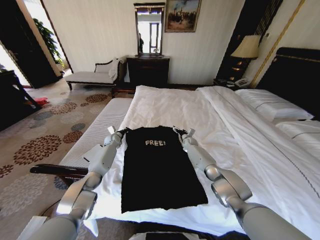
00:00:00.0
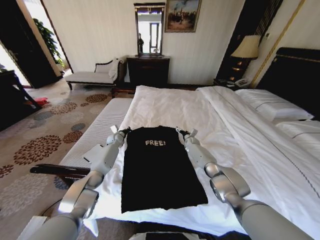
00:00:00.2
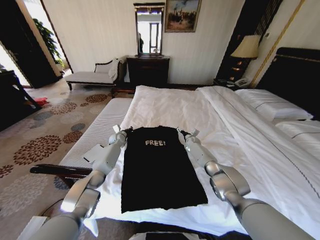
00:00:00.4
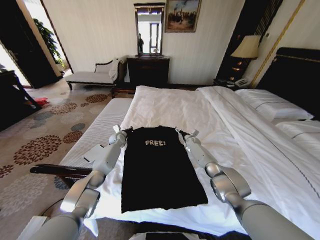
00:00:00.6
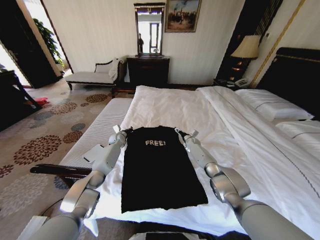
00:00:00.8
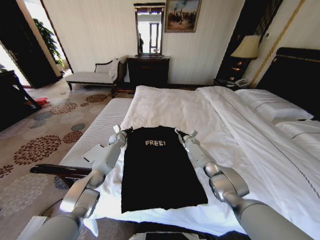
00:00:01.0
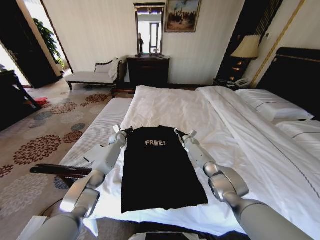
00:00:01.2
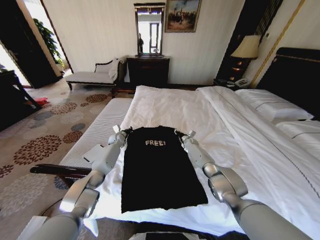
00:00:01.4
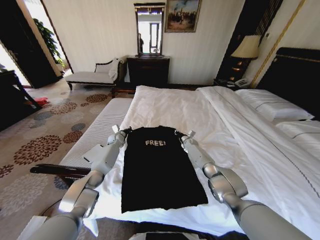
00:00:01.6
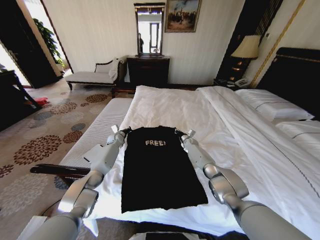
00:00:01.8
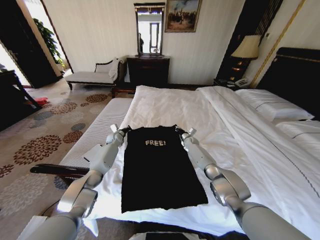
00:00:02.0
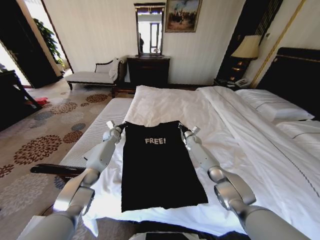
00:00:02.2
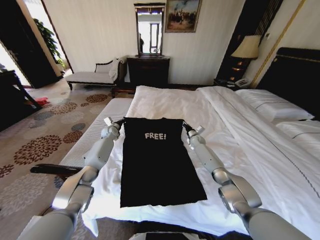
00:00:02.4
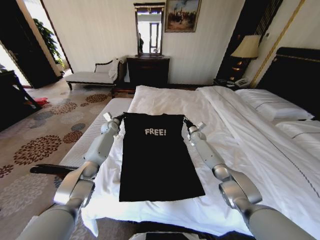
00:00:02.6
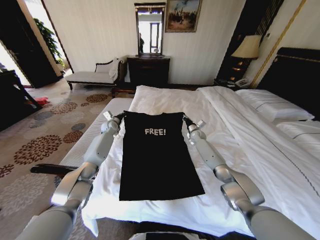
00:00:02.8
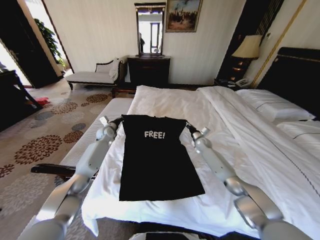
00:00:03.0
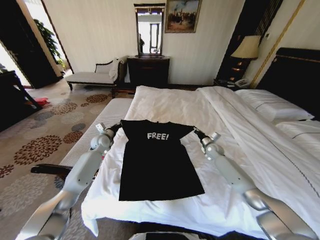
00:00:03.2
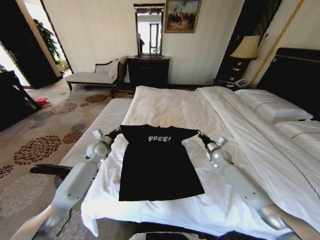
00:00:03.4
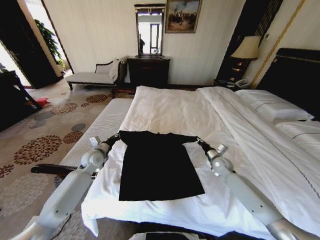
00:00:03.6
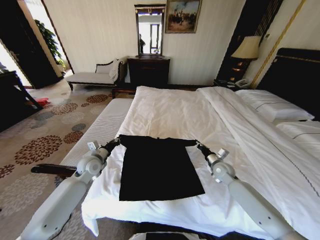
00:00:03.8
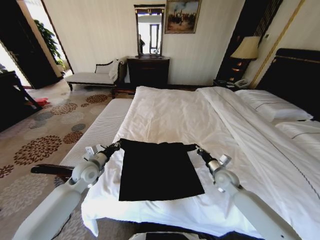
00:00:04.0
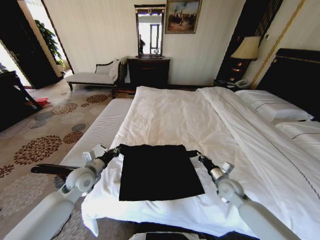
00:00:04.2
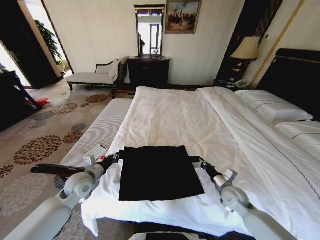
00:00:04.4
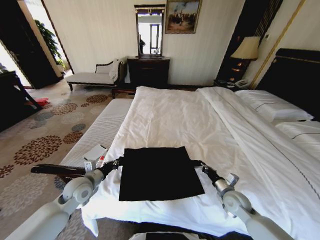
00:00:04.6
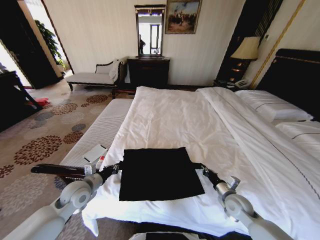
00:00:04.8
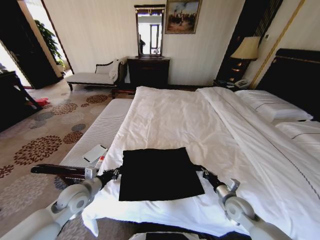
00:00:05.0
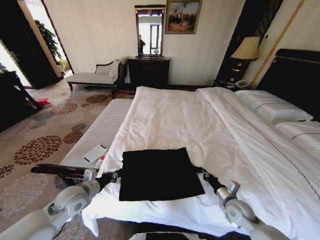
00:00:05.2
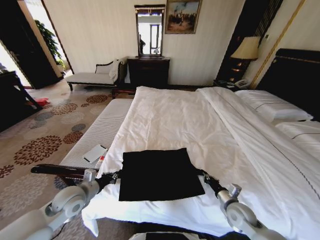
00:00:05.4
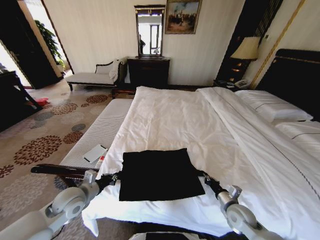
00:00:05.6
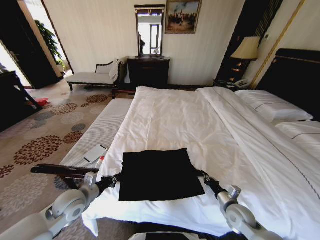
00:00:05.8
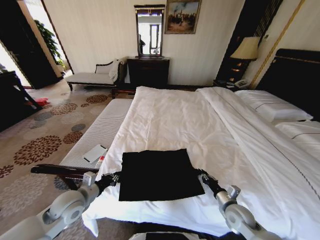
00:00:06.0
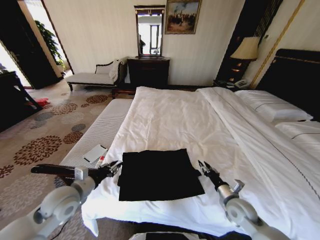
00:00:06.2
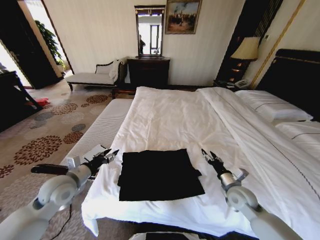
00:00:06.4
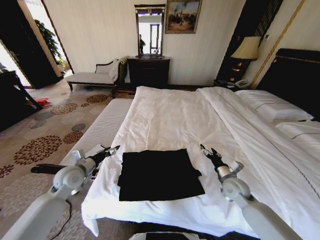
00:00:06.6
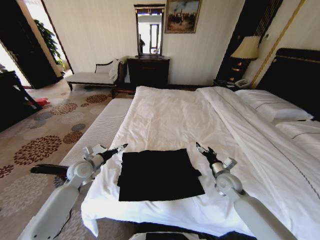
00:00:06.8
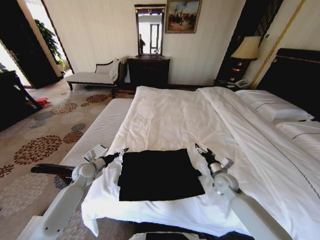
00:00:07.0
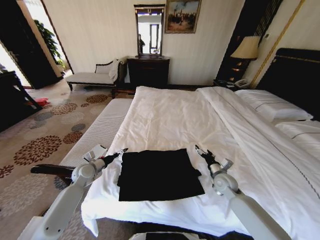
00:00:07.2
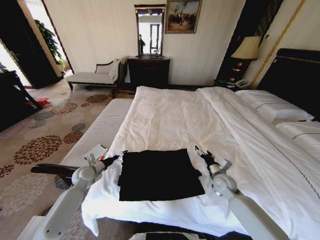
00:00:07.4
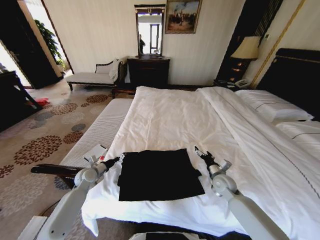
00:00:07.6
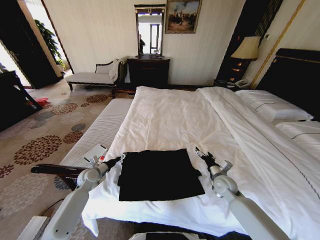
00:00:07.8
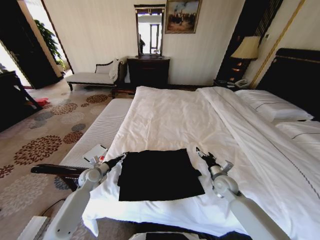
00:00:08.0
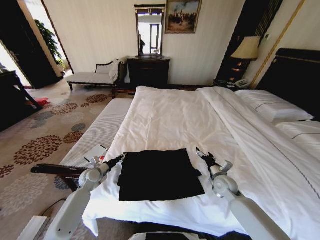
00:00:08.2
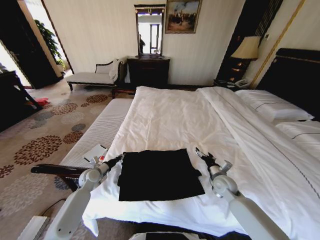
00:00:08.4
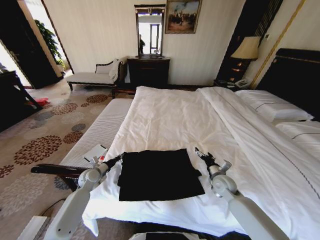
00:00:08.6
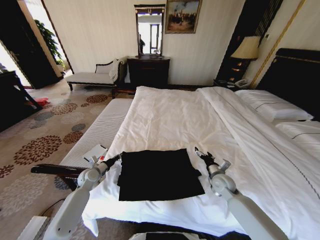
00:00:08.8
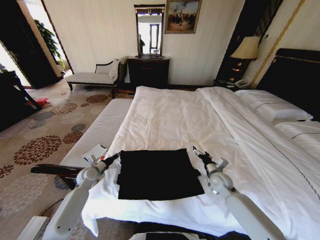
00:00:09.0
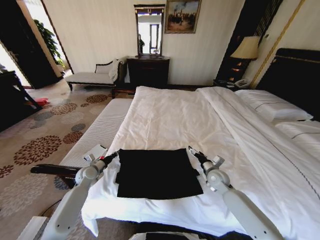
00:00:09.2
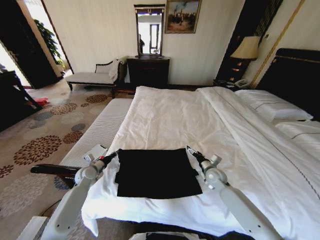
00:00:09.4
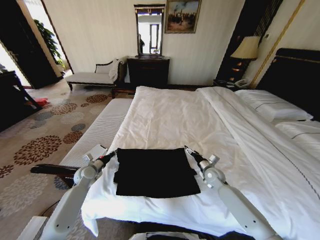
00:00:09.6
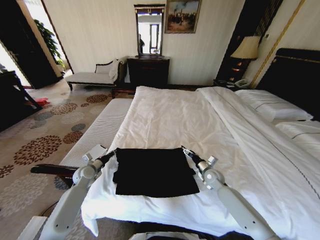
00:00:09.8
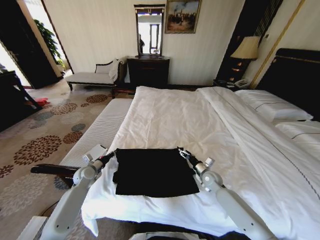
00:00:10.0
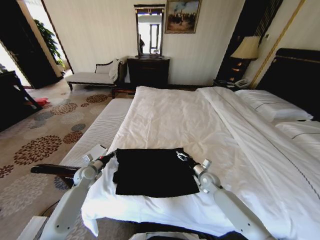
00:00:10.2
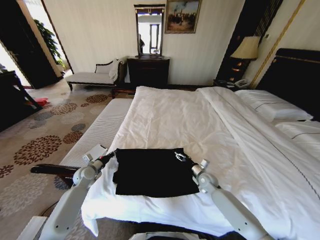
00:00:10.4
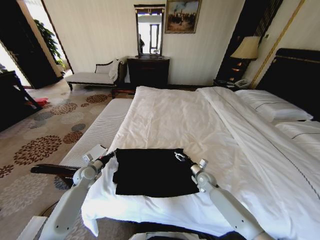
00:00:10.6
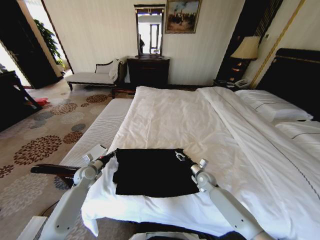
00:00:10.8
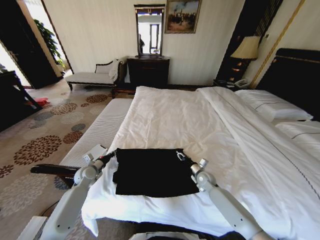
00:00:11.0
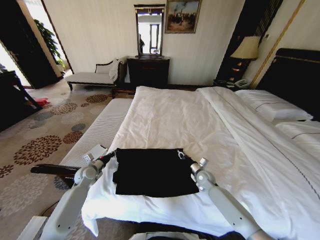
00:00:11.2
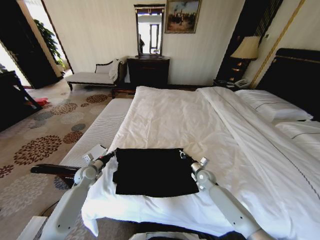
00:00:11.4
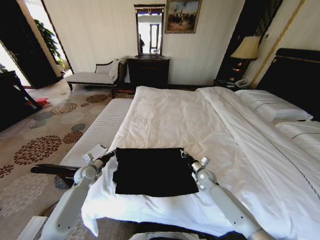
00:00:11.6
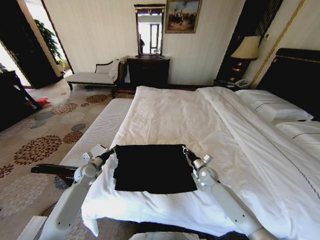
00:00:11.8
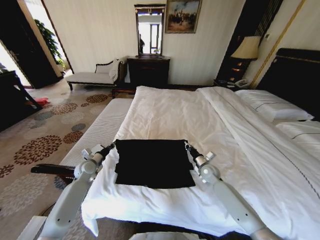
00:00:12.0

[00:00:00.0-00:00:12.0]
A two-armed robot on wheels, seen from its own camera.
Task of the whole recording: Fold the clothes on the bed.
00:00:00.0 to 00:00:01.6: The right gripper closes its fingers.
00:00:01.6 to 00:00:03.0: The right gripper moves to the right and upward, about 10 cm. Meanwhile the left gripper heads upward, covering some 10 cm.
00:00:03.0 to 00:00:04.4: The two grippers go roughly 30 cm backward.
00:00:04.4 to 00:00:06.0: Both grippers travel together backward, some 5 cm.
00:00:06.0 to 00:00:07.6: The right gripper heads forward, covering approximately 10 cm, and opens; the left gripper shifts approximately 15 cm forward and downward, and opens its fingers.
00:00:07.6 to 00:00:09.0: The left gripper closes.
00:00:09.0 to 00:00:10.4: The right gripper is displaced downward by some 5 cm.
00:00:10.4 to 00:00:12.0: The right gripper closes up.

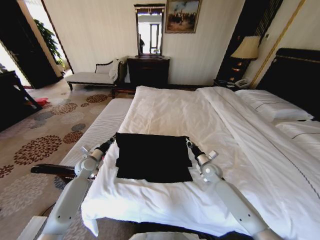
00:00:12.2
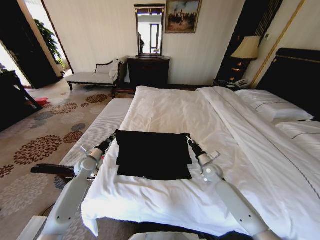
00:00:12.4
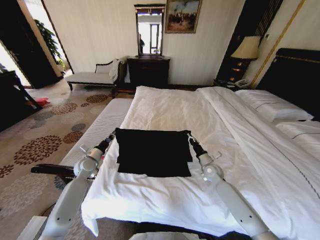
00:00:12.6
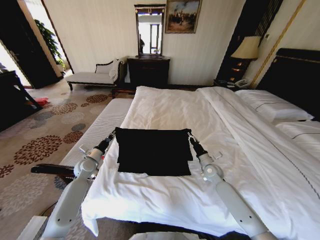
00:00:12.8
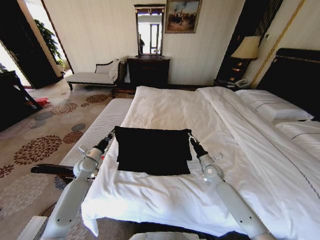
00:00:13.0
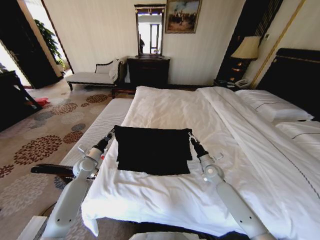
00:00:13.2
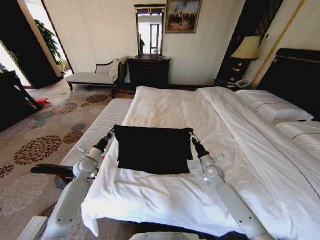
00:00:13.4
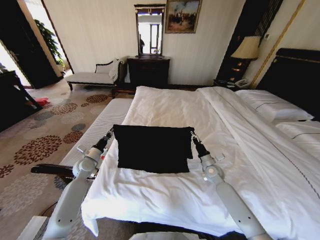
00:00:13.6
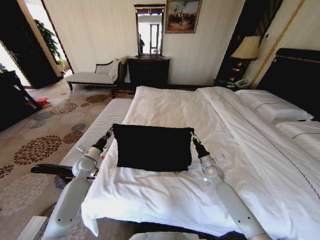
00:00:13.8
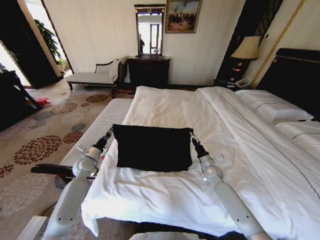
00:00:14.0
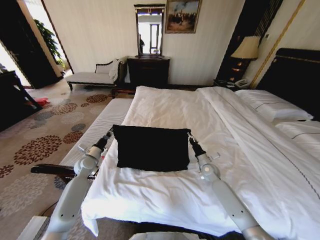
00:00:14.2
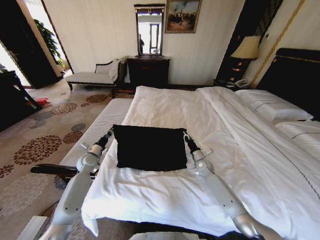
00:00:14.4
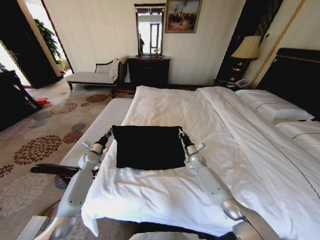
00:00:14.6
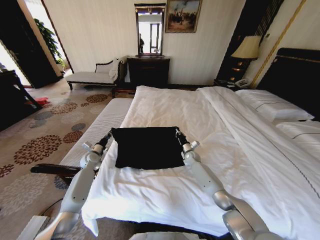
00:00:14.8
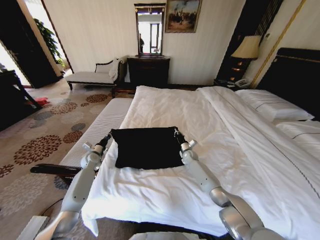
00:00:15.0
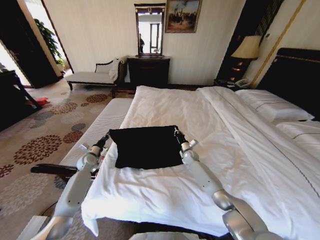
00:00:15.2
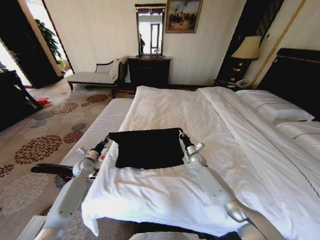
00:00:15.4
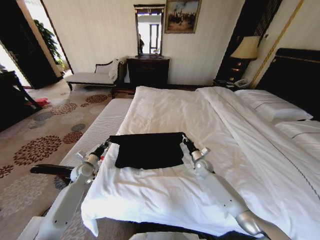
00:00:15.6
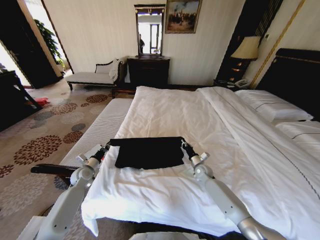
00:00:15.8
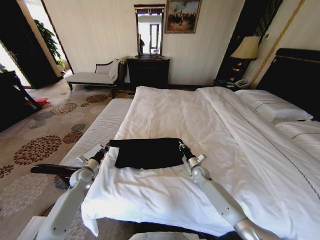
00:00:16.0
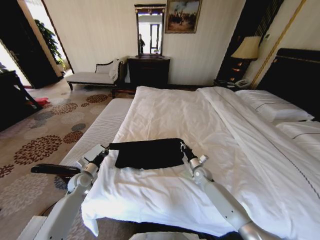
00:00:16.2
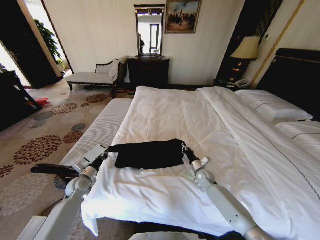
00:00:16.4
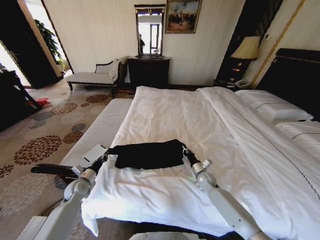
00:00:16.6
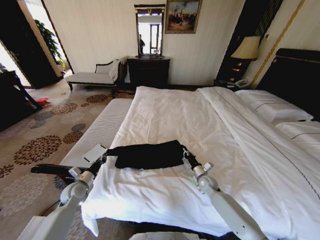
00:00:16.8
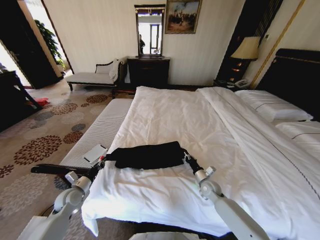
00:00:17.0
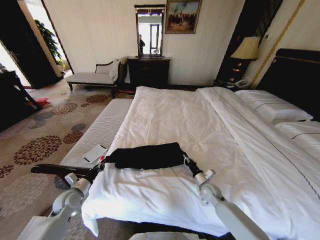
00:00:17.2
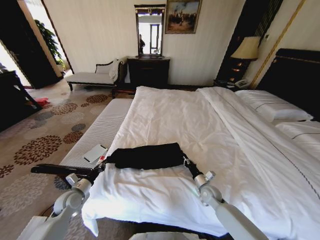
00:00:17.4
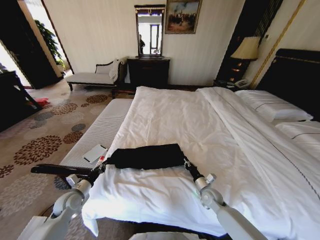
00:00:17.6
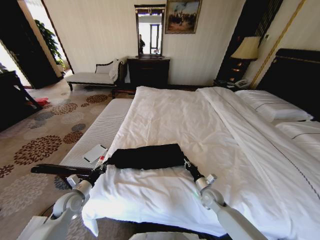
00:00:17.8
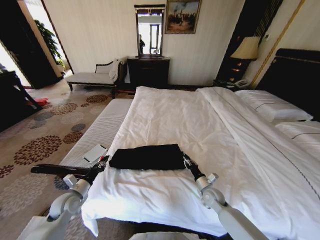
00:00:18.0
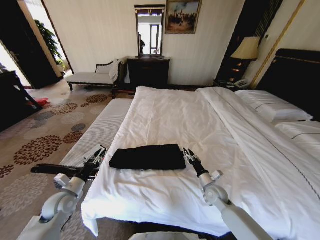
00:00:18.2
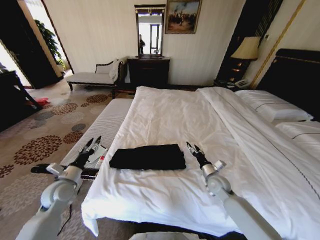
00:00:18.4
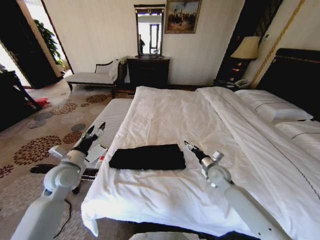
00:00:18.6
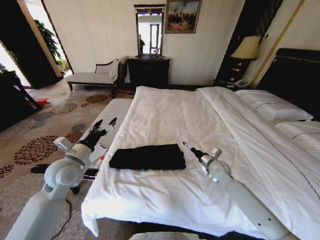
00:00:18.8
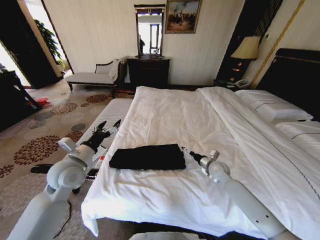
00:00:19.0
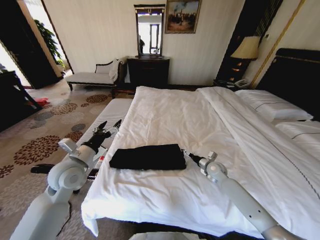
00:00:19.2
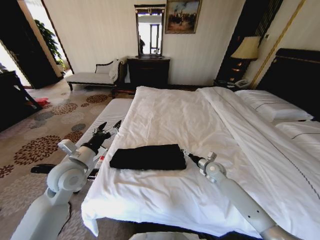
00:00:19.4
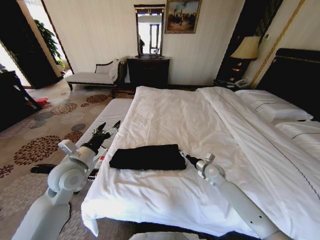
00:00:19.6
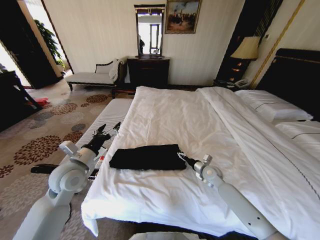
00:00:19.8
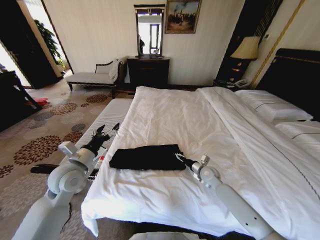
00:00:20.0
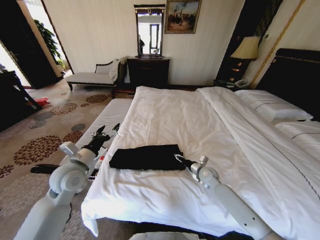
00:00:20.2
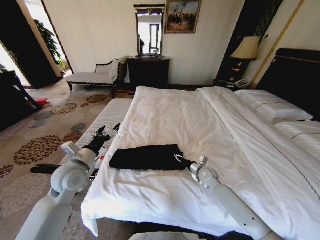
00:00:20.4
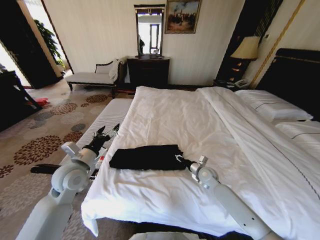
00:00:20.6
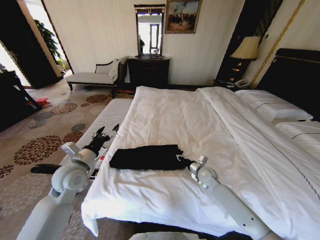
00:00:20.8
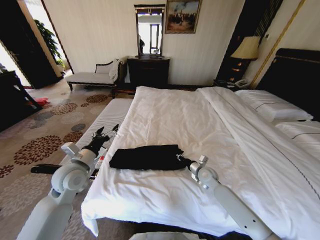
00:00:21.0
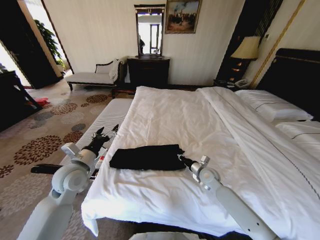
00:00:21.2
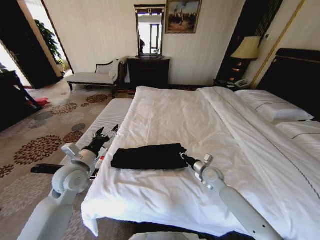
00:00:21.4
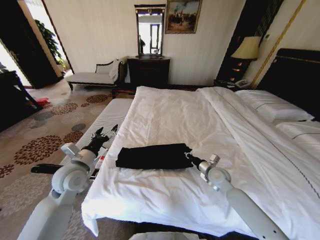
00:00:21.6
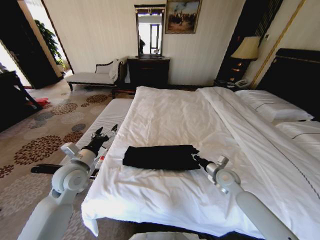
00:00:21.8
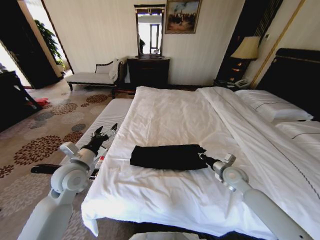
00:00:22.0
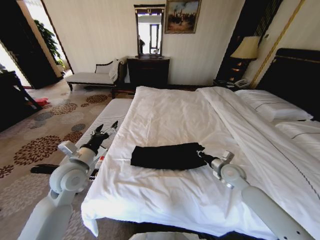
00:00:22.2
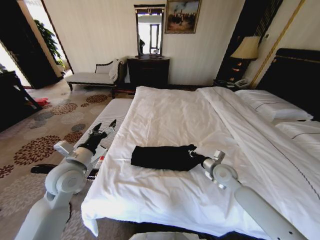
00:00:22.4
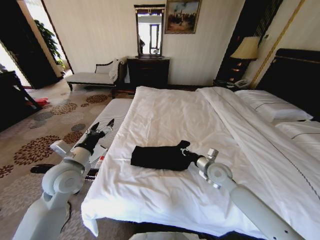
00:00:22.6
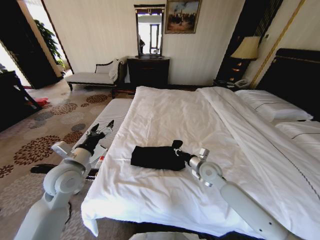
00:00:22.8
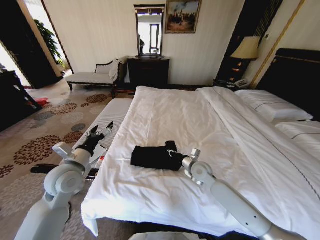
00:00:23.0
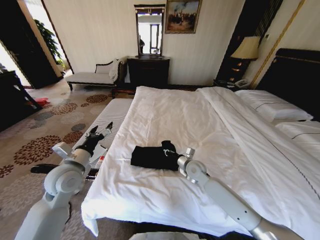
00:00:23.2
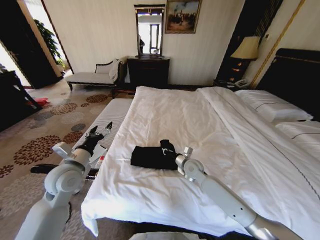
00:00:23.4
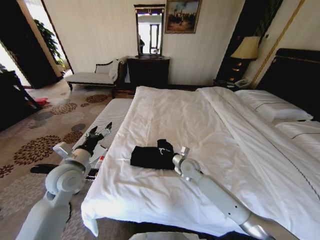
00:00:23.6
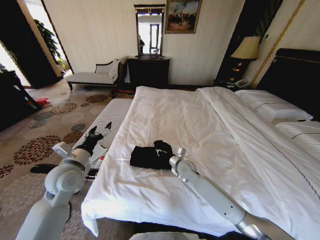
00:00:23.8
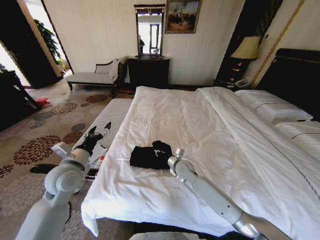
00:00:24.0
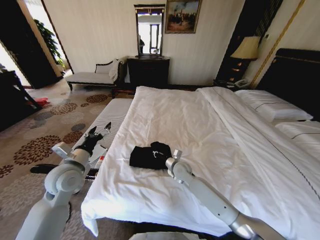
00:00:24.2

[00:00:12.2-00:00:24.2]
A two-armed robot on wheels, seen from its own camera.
Task of the whole recording: Fold the clothes on the bed.
00:00:13.8 to 00:00:15.2: The right gripper travels forward and to the left by some 15 cm. The left gripper is displaced forward by some 5 cm.
00:00:15.2 to 00:00:16.6: The grippers both shift backward by about 15 cm.
00:00:16.6 to 00:00:18.2: The right gripper goes approximately 10 cm backward, and opens its fingers, while the left gripper travels backward and upward by roughly 10 cm.
00:00:18.2 to 00:00:19.8: The left gripper goes roughly 20 cm upward and to the right, and opens; the right gripper heads forward, covering roughly 10 cm, and opens its fingers.
00:00:19.8 to 00:00:21.2: The right gripper closes up.
00:00:21.2 to 00:00:22.6: The right gripper goes about 10 cm upward, and moves about 10 cm to the right and comes back.
00:00:22.6 to 00:00:24.2: The right gripper travels to the left and downward by about 15 cm.
